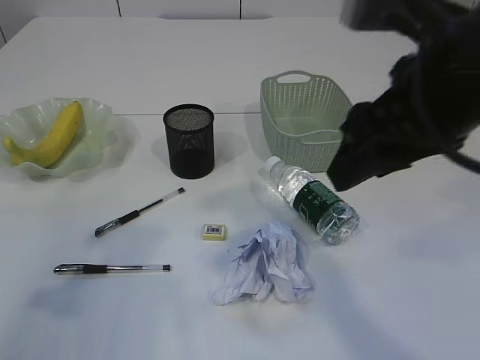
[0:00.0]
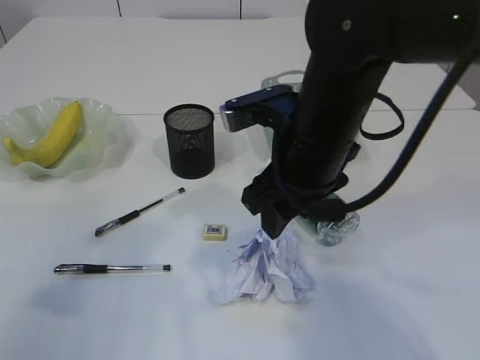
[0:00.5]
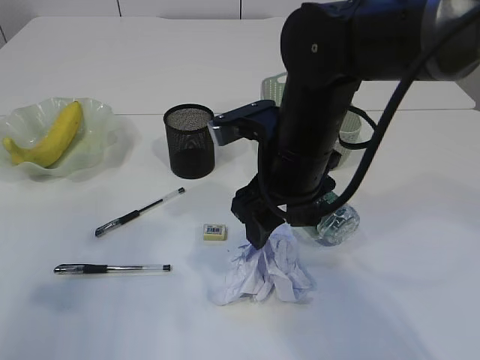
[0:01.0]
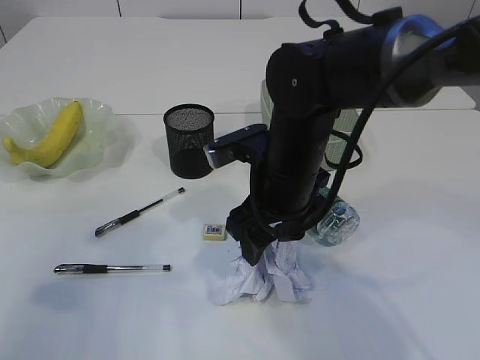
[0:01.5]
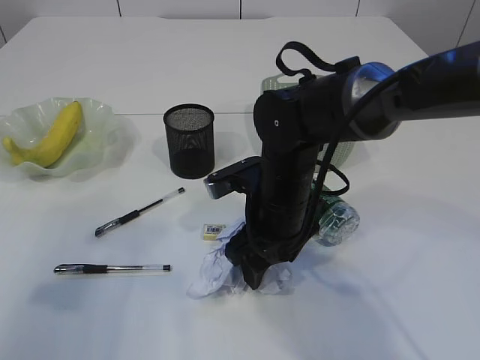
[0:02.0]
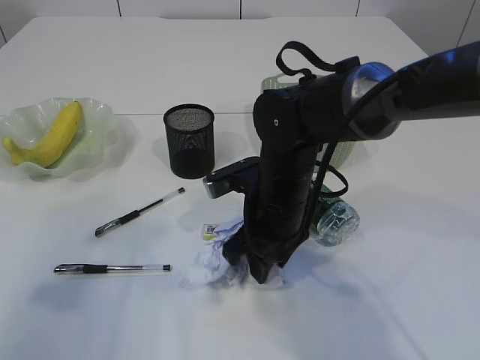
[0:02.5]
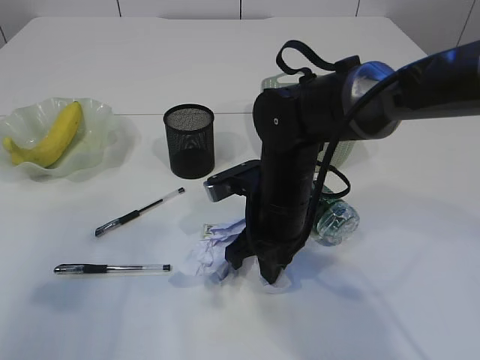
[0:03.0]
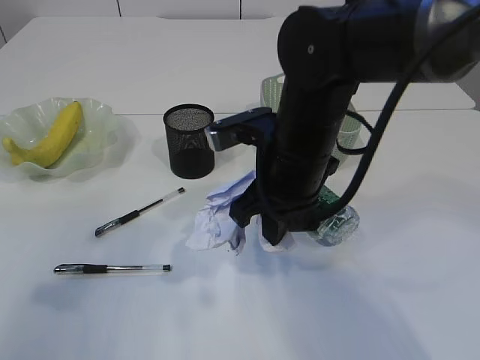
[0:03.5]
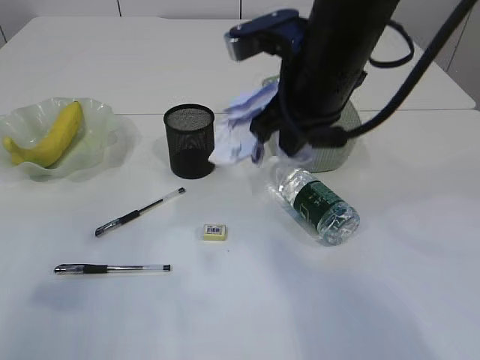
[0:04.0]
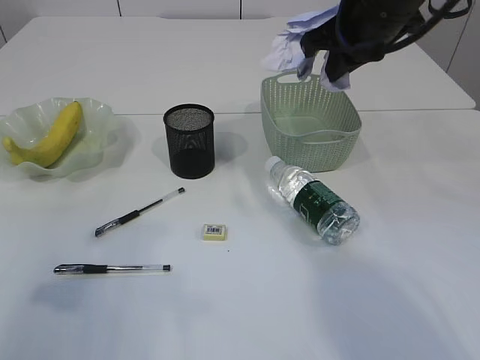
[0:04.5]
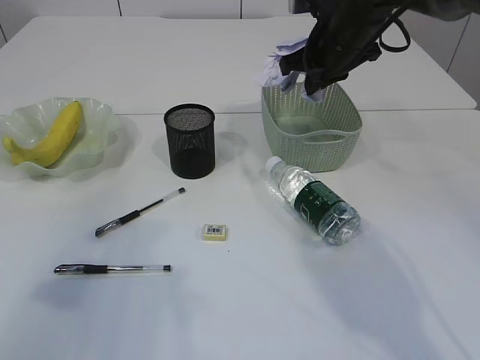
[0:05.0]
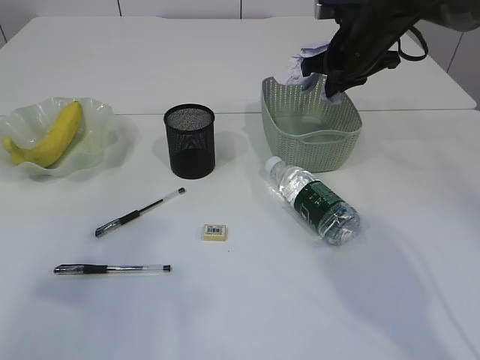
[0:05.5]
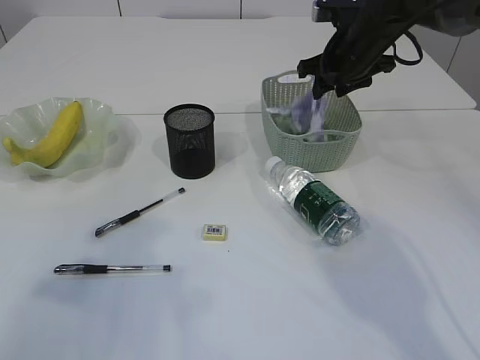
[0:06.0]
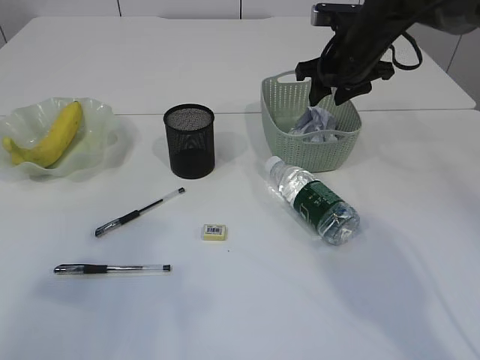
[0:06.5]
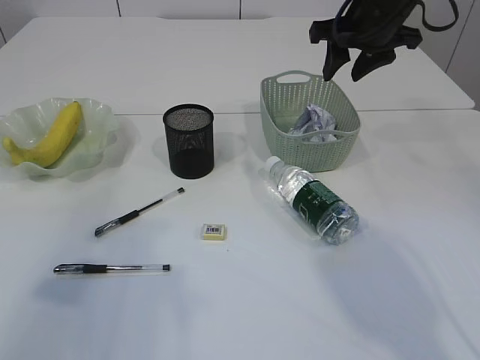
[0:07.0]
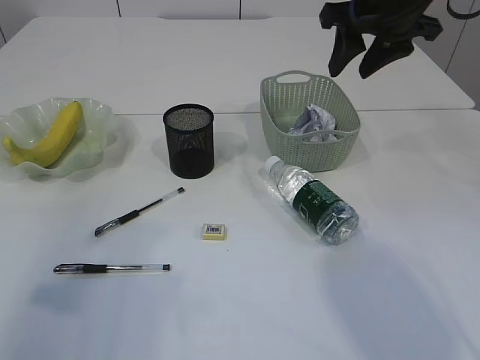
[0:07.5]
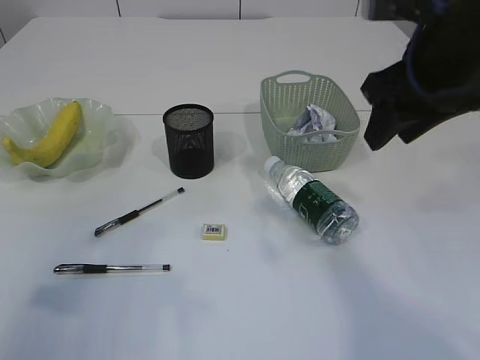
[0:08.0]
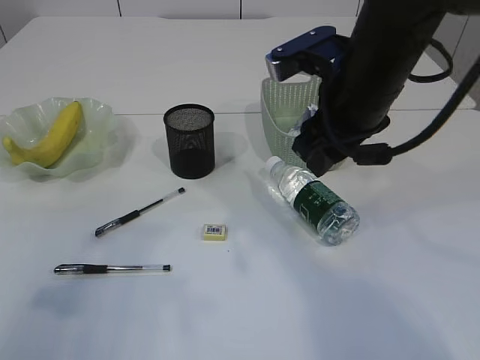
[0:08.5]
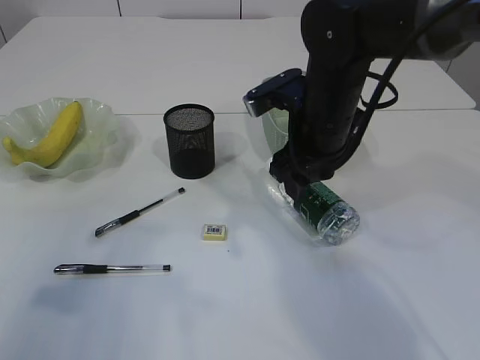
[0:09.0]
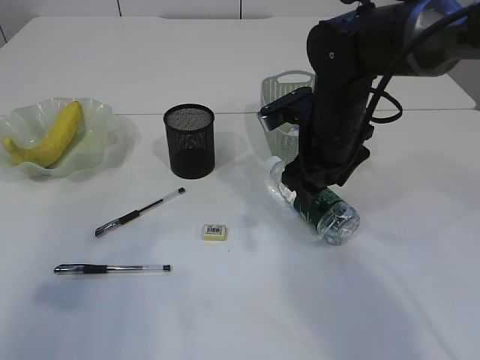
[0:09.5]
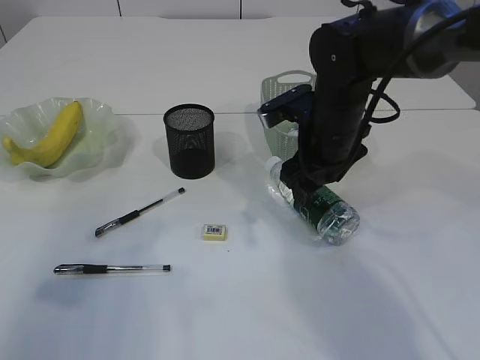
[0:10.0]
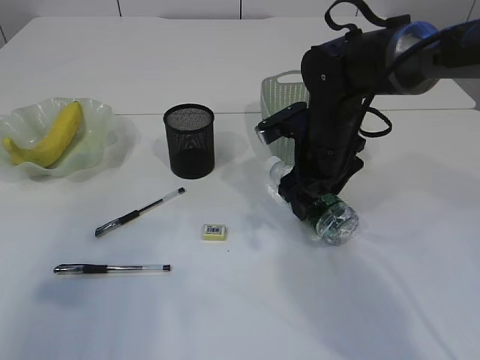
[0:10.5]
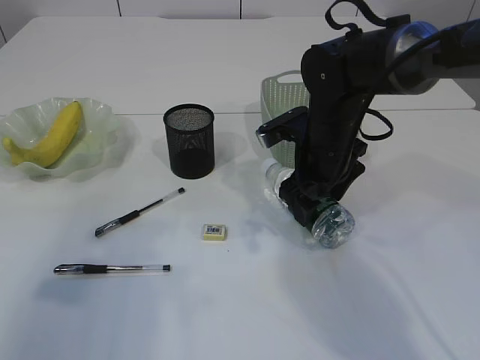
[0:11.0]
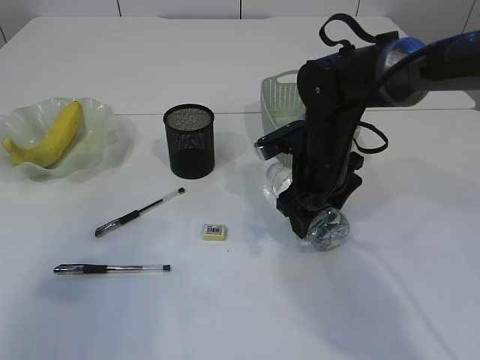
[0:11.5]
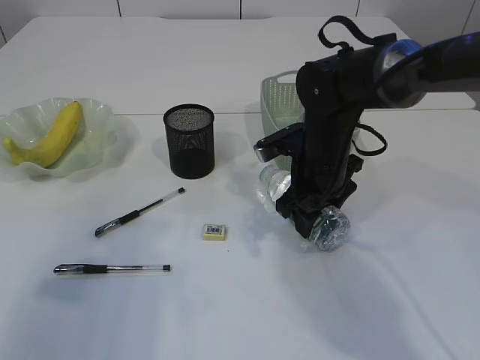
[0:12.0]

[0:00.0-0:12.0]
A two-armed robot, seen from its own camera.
Step, 0:00.0 to 0:03.0: Pick up the waste paper.
Step, 0:03.5 to 0:07.0: Place the waste paper in the basket.
0:00.0 to 0:02.0: The right gripper is displaced downward, to the left and forward by approximately 25 cm.
0:02.0 to 0:04.0: The right gripper moves upward, roughly 15 cm, and closes.
0:04.0 to 0:06.0: The right gripper heads forward and to the right, covering roughly 20 cm, and opens.
0:06.0 to 0:08.0: The right gripper heads backward and upward, covering some 20 cm.
0:08.0 to 0:10.0: The right gripper is displaced downward, forward and to the left by roughly 15 cm, and opens its fingers.
0:10.0 to 0:12.0: The grippers make only small movements.

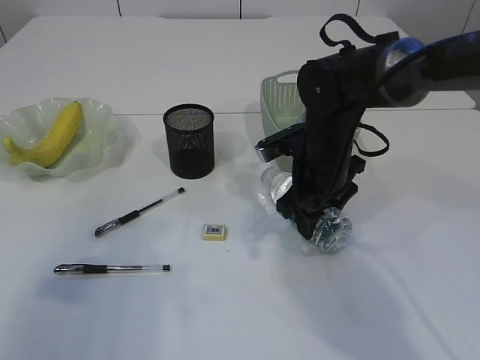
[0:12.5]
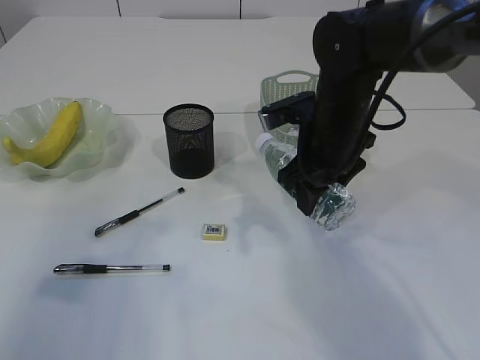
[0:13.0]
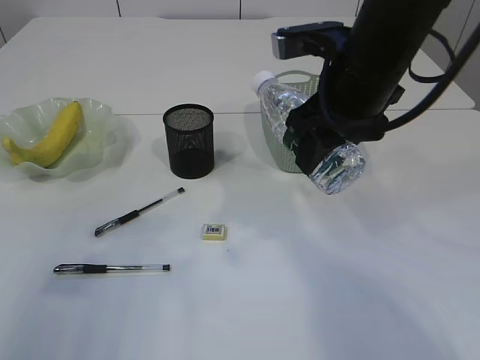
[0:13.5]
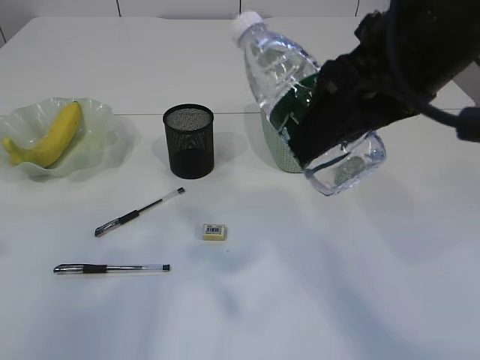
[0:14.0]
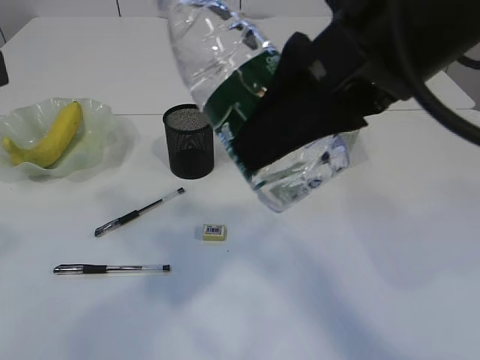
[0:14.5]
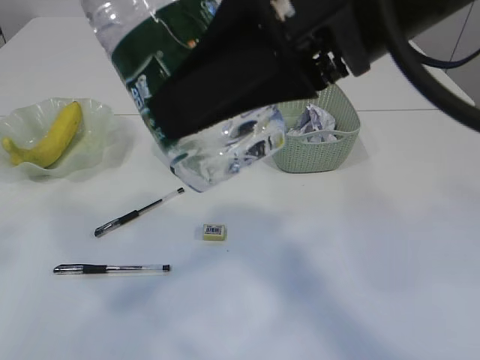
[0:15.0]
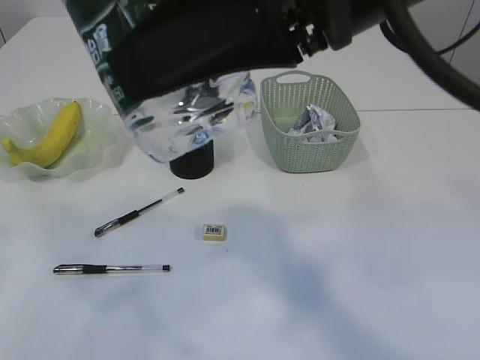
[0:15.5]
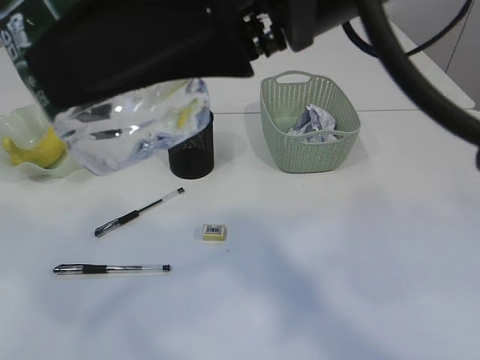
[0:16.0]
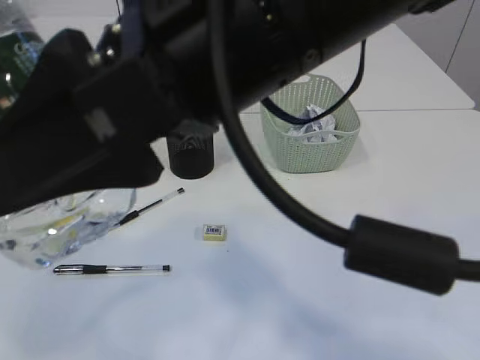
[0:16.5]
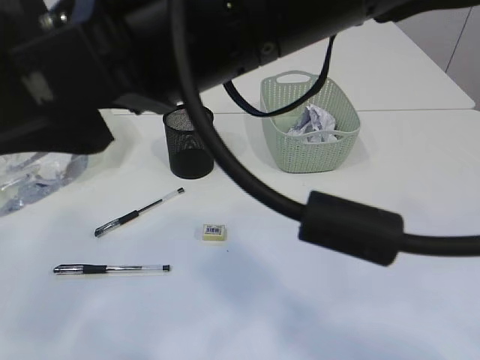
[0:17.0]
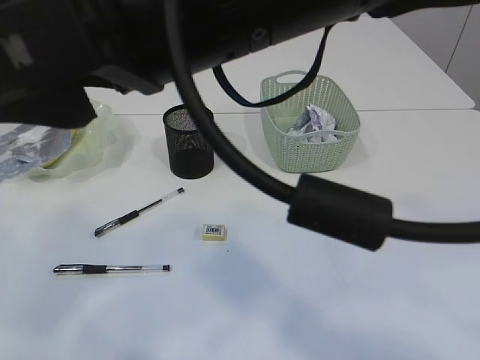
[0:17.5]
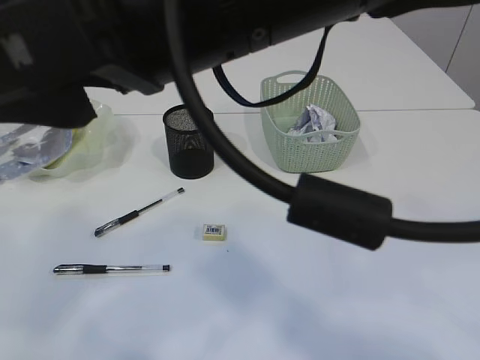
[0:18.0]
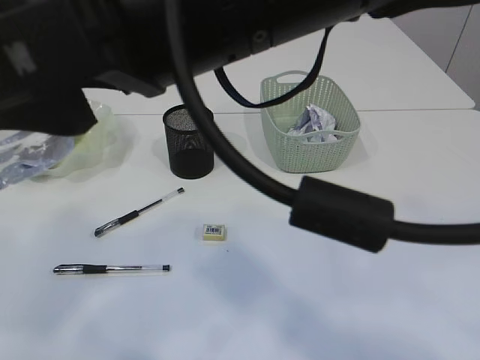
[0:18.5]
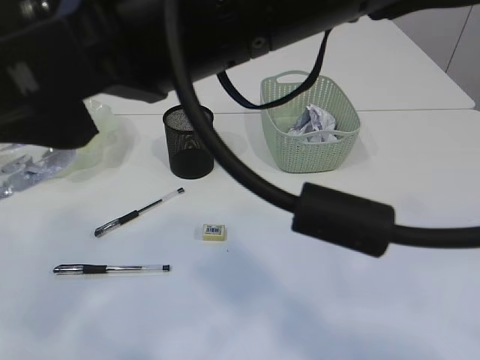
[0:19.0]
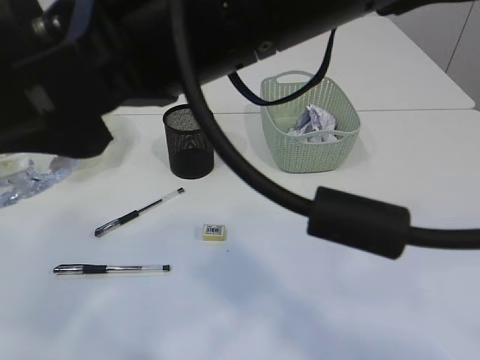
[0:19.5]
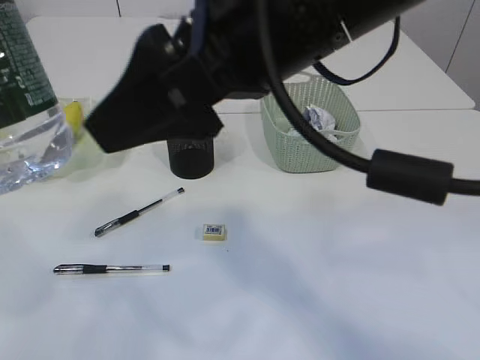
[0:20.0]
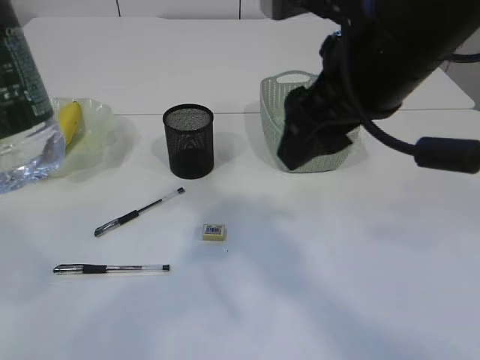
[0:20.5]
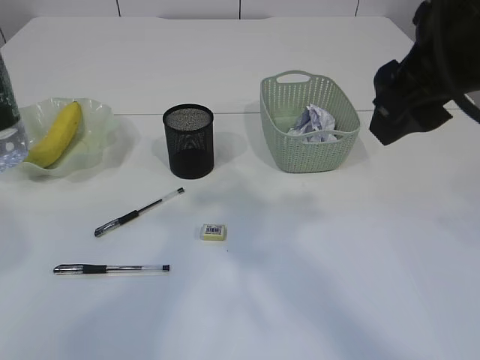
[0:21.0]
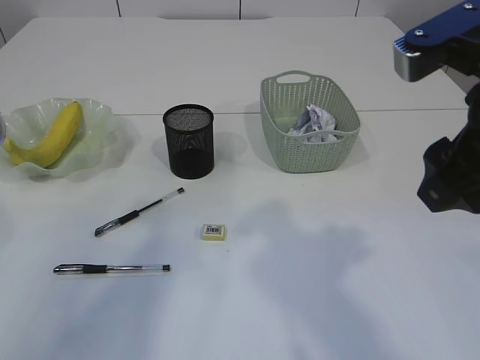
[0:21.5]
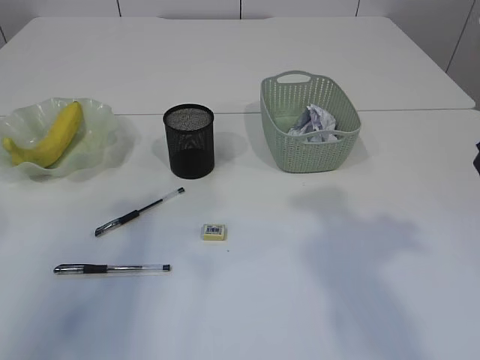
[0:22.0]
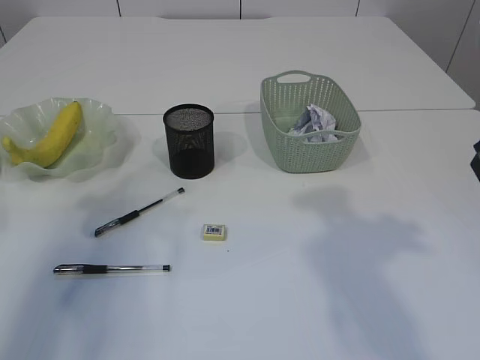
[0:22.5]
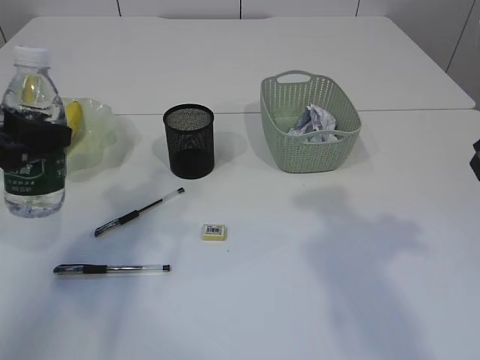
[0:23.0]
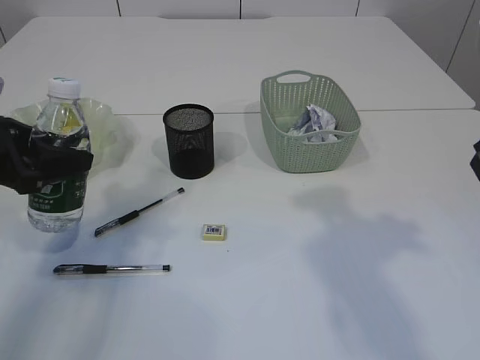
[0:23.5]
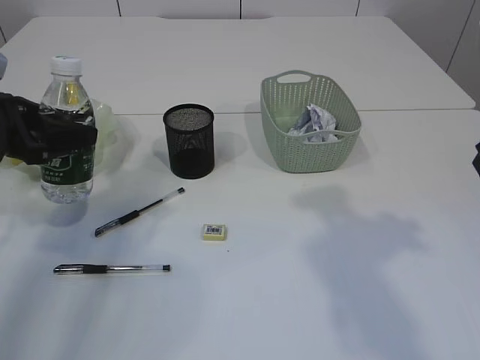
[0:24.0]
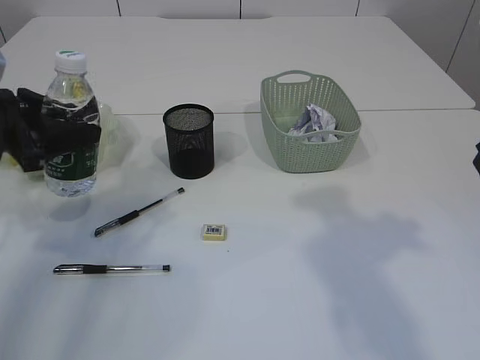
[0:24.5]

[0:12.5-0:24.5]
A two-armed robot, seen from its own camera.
Step, 0:13.5 to 0:20.0: transfer the bottle to the left arm.
0:12.5 to 0:14.5: The right gripper heads upward and backward, covering some 30 cm. The left gripper moves roughly 5 cm.
0:14.5 to 0:16.5: The left gripper opens its fingers. The right gripper shifts about 10 cm to the left.
0:18.5 to 0:20.5: The right gripper shifts some 10 cm to the right and forward.
0:20.5 to 0:22.5: The left gripper shifts about 15 cm forward, downward and to the left. The right gripper goes about 15 cm to the right.
0:22.5 to 0:24.5: The left gripper moves forward and downward, some 15 cm.

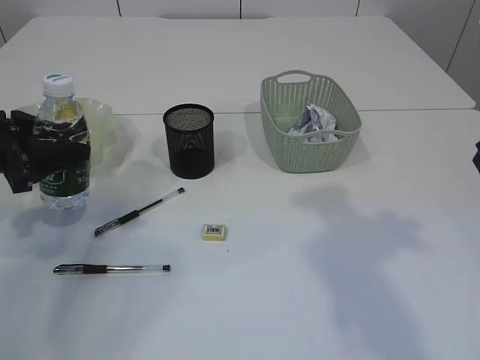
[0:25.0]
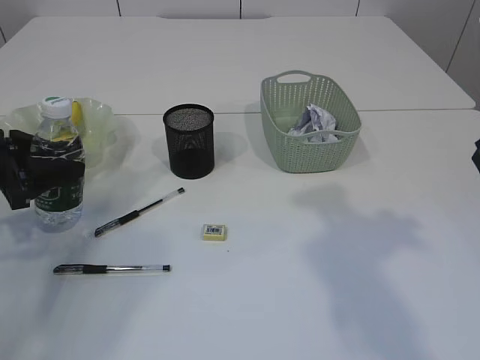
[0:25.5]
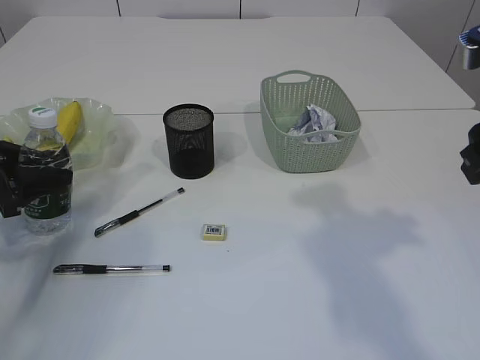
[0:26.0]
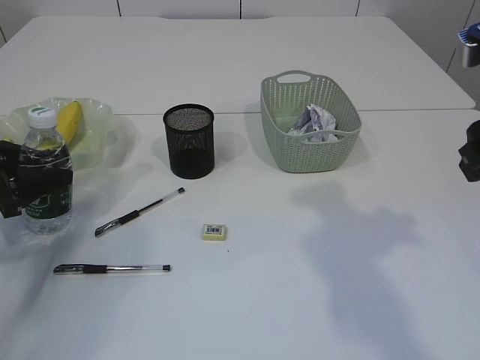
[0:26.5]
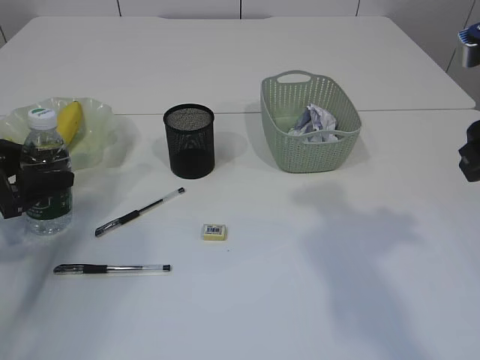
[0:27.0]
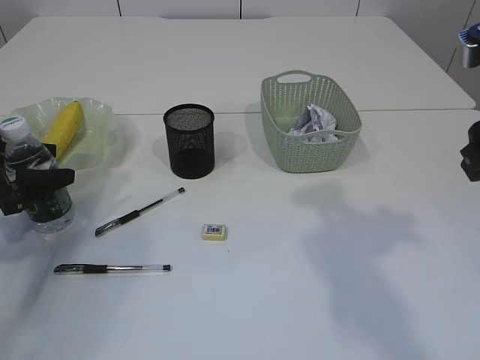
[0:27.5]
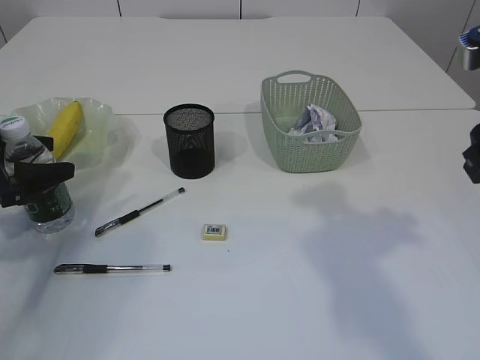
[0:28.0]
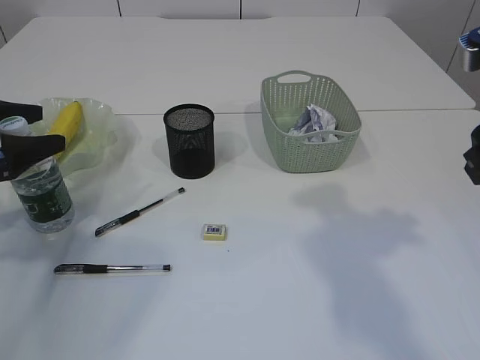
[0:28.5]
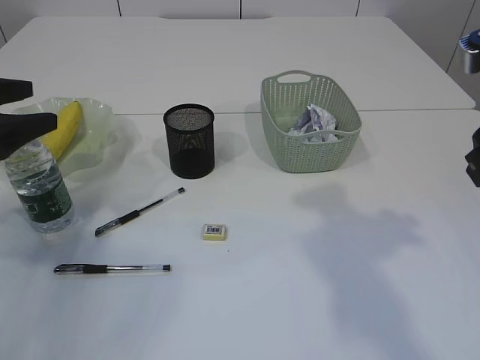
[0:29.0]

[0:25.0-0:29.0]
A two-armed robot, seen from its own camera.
0:25.0 to 0:27.0: The left gripper is displaced downward by approximately 5 cm.
0:27.0 to 0:29.0: The left gripper goes some 10 cm upward.
